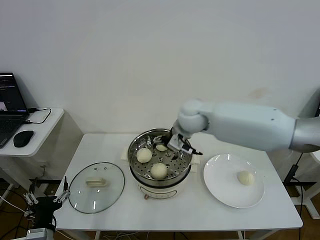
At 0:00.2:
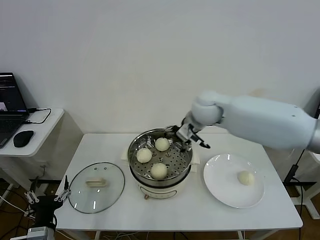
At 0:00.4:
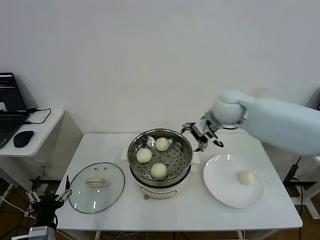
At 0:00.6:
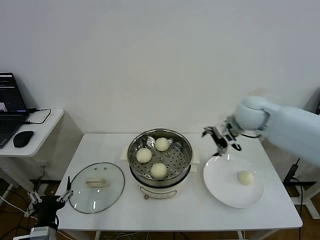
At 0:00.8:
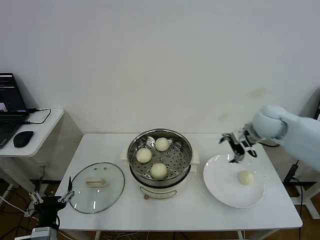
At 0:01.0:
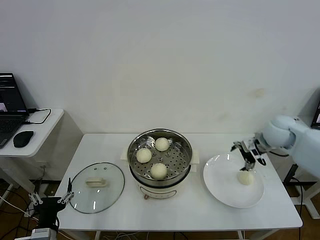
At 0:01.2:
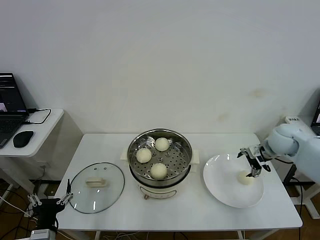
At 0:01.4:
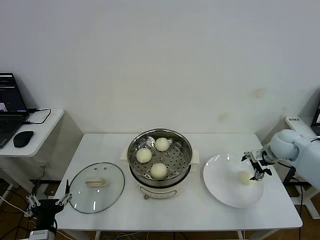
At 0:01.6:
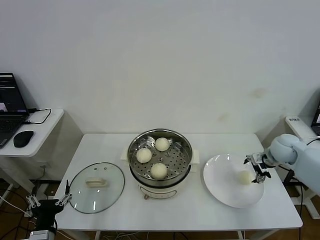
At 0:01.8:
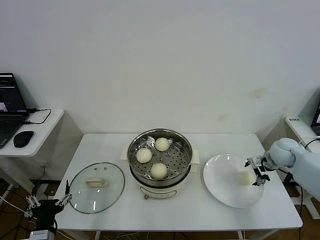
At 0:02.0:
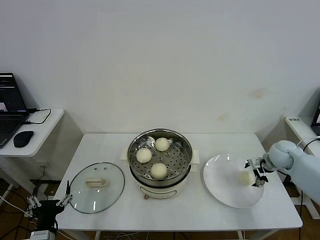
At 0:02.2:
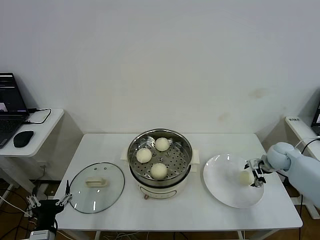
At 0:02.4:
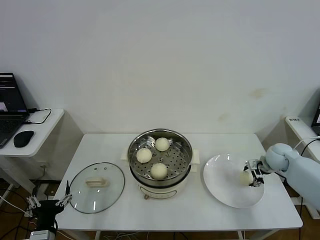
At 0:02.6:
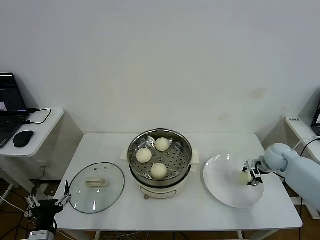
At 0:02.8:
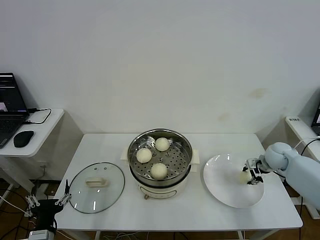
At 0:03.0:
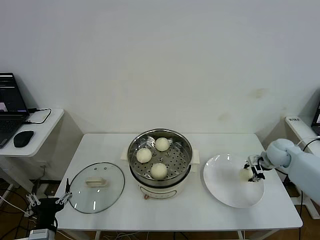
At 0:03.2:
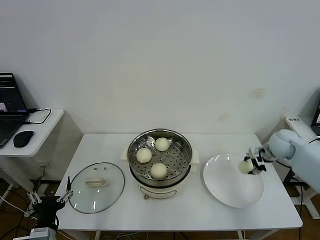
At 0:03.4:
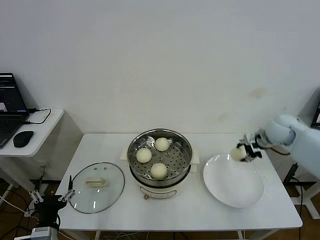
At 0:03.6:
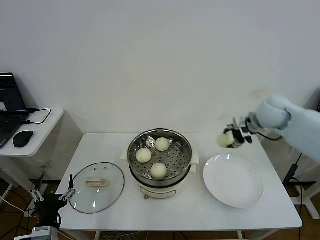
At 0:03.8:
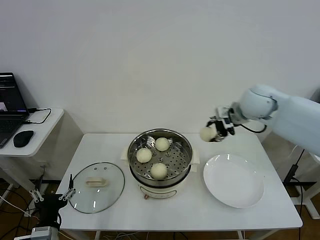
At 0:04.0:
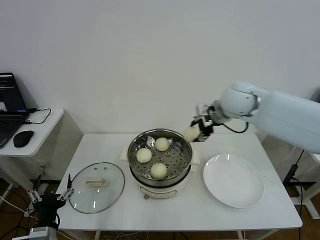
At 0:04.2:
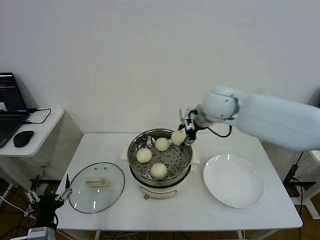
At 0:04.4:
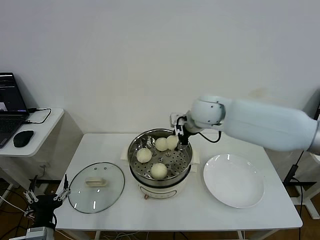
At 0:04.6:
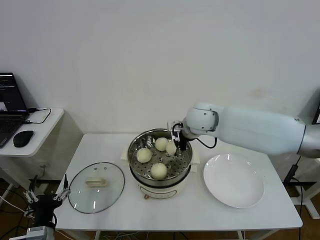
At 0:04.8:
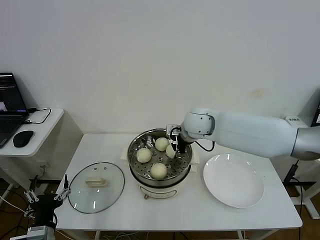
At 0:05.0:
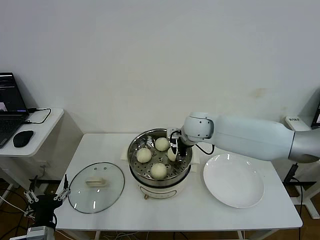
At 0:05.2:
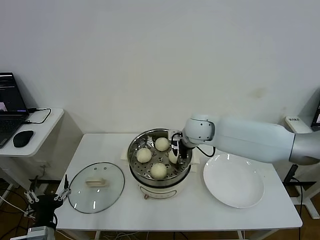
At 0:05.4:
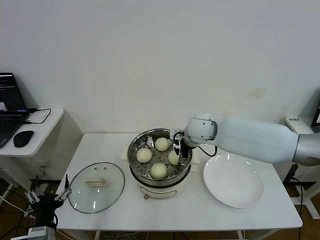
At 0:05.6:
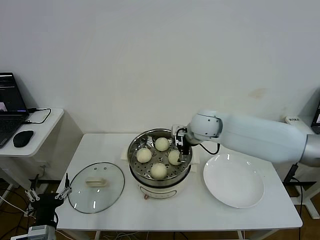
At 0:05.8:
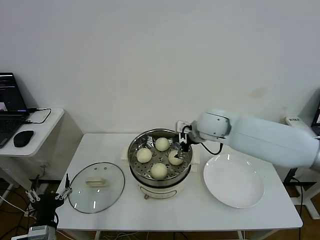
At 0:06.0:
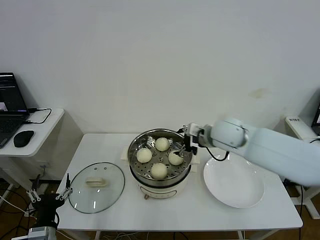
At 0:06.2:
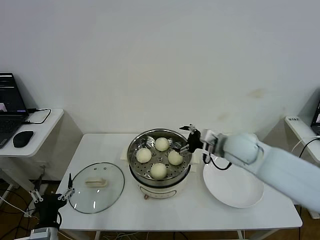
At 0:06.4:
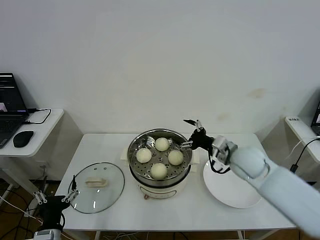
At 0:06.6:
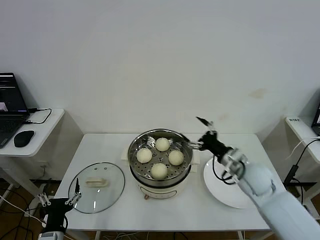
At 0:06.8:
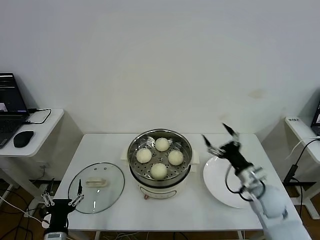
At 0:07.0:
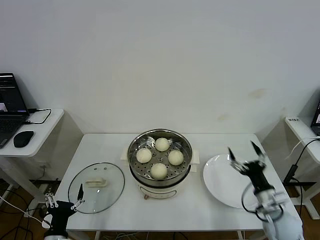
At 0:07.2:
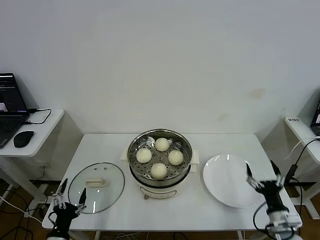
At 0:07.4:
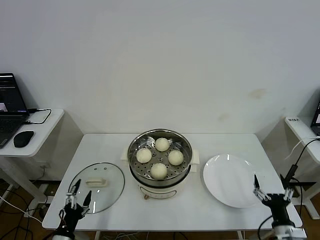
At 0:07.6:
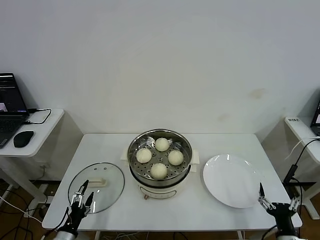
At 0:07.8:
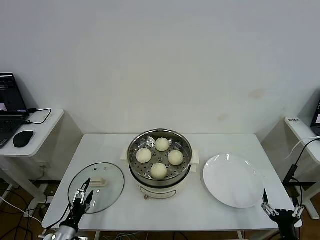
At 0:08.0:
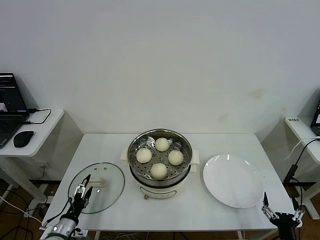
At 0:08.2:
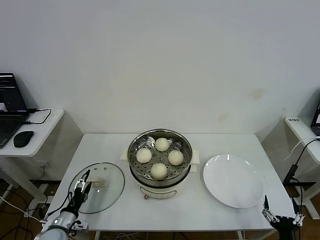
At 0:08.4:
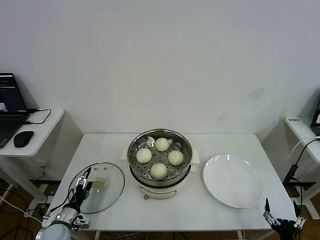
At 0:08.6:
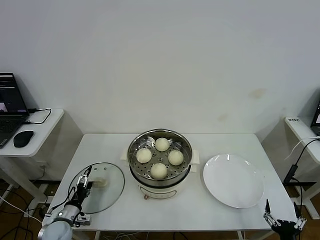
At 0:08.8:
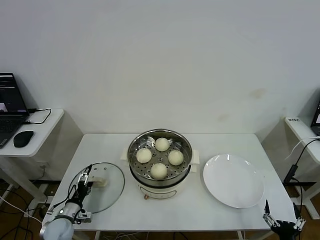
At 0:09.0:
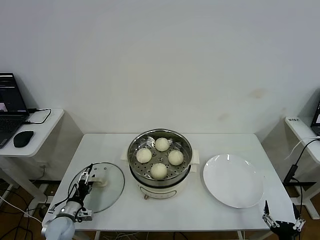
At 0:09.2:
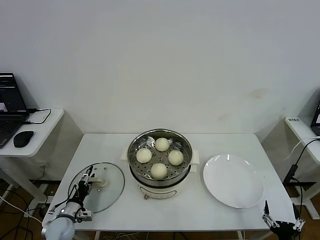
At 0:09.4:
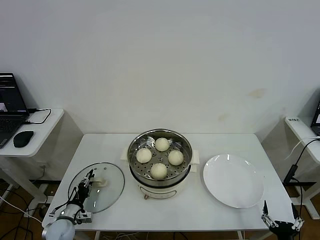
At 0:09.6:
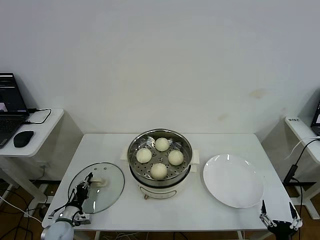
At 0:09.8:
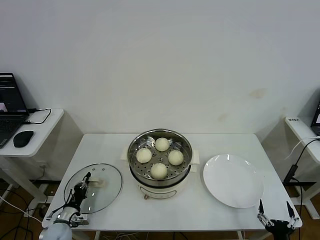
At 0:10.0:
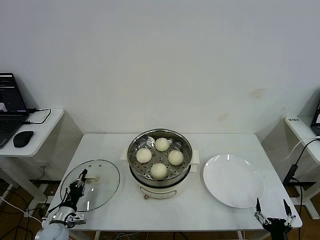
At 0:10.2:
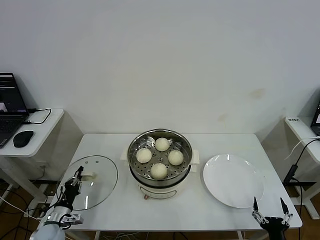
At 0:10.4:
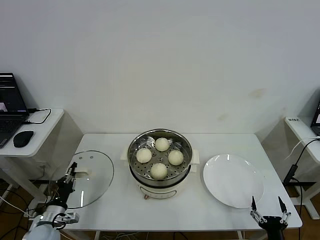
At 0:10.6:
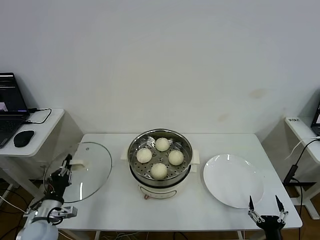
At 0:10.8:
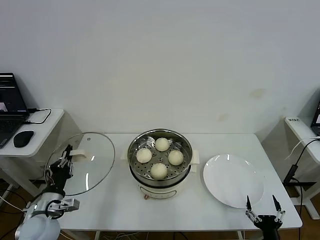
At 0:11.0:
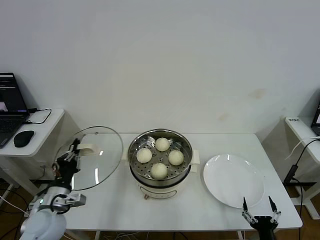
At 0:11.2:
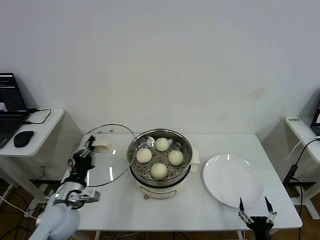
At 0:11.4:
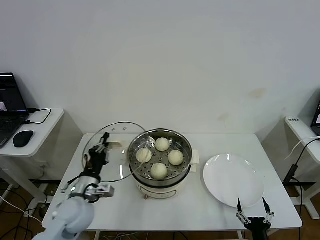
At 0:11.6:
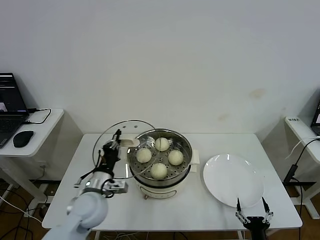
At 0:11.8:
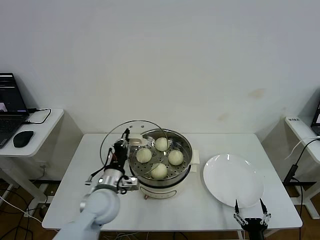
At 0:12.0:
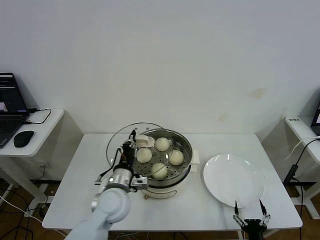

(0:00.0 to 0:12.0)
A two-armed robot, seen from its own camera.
Step, 0:00.0 - 0:02.4: Grasp the baozi in the plate with right gripper.
Step, 0:02.6 - 0:05.4: Place the baozi on the steamer with right gripper.
Step, 0:05.6 - 0:09.8: Grasp the pot lid with left gripper.
0:00.0 - 0:01.6: The right gripper travels to the right and downward by approximately 35 cm.
0:01.6 - 0:03.0: The right gripper closes up.
0:03.0 - 0:04.4: The right gripper goes approximately 35 cm to the left and upward.
0:04.4 - 0:06.0: The right gripper is displaced to the right by about 5 cm, and opens its fingers.
0:06.0 - 0:07.6: The left gripper goes approximately 10 cm downward. Meanwhile the right gripper moves backward, downward and to the right, roughly 50 cm.
0:07.6 - 0:09.0: The left gripper travels forward by roughly 10 cm, while the right gripper moves about 5 cm.
0:09.0 - 0:10.4: The left gripper moves roughly 5 cm, and closes its fingers.
0:10.4 - 0:12.0: The right gripper ends up about 5 cm from where it was, while the left gripper shifts roughly 30 cm to the right and upward.

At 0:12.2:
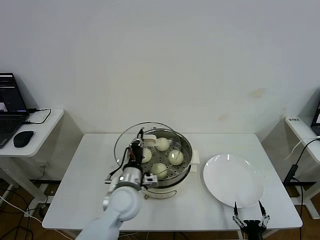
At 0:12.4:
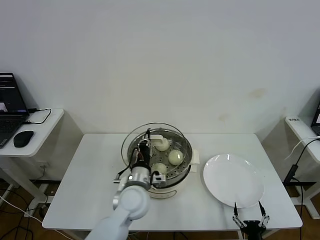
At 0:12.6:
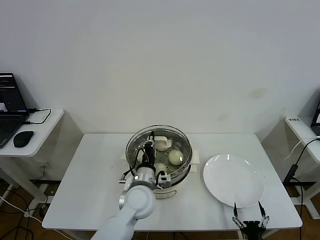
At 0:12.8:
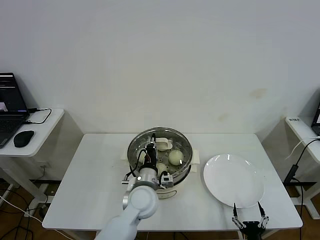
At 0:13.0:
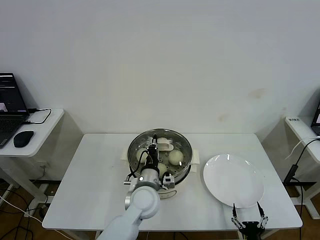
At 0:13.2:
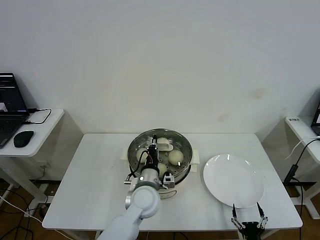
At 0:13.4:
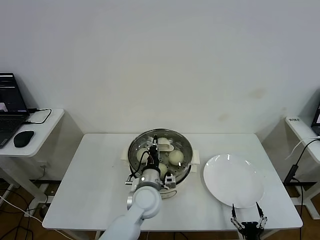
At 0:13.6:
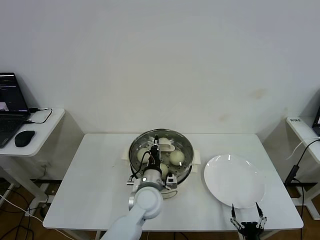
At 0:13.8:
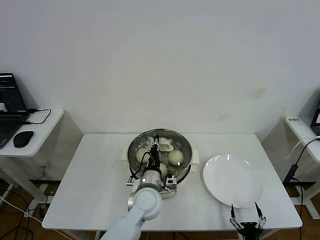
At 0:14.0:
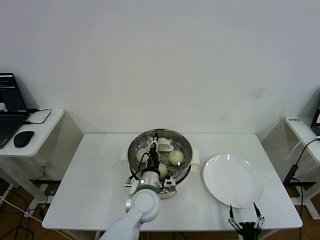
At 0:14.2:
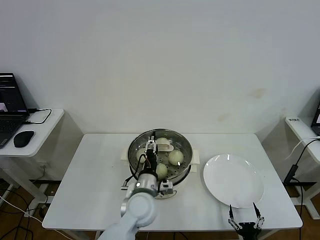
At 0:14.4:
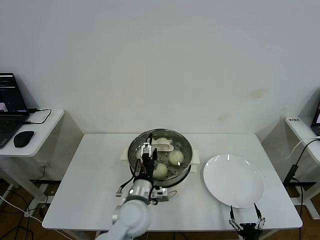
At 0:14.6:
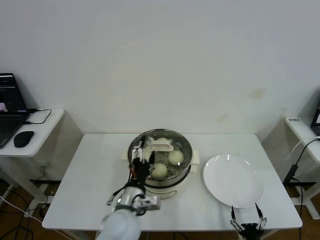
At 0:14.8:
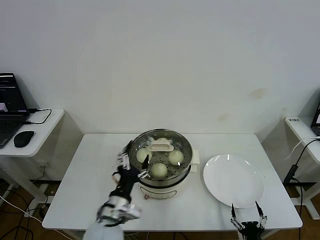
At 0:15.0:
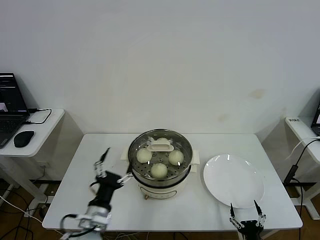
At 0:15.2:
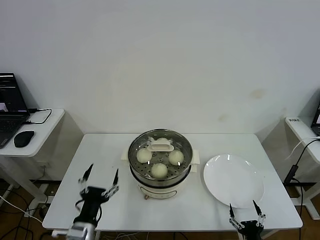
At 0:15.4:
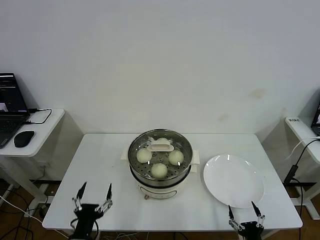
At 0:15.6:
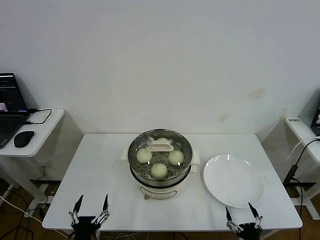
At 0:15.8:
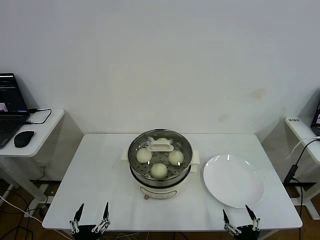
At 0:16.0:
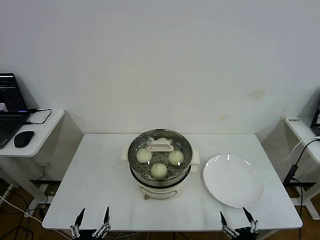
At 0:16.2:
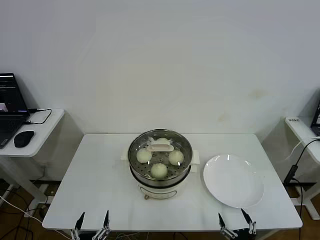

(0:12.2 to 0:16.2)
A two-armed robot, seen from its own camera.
0:12.2 - 0:13.6: The left gripper heads to the right, covering approximately 5 cm.
0:13.6 - 0:14.8: The left gripper travels backward and to the left by approximately 15 cm, and opens up.
0:14.8 - 0:16.2: The left gripper moves backward, downward and to the left, approximately 25 cm; the right gripper heads upward, covering roughly 10 cm.
